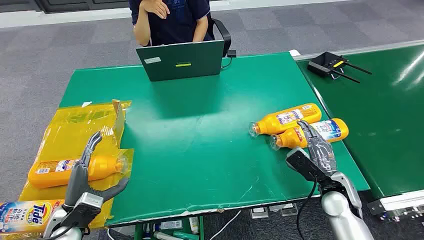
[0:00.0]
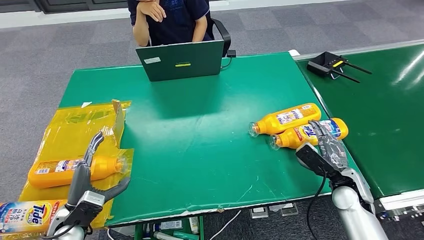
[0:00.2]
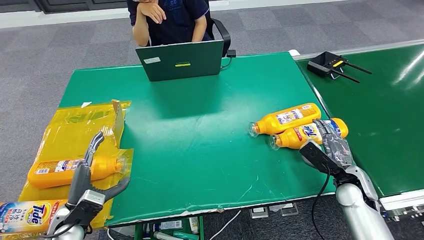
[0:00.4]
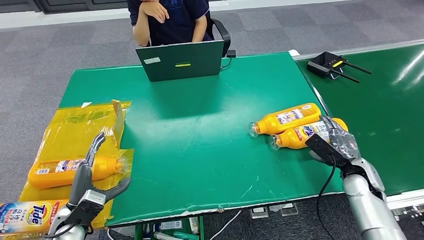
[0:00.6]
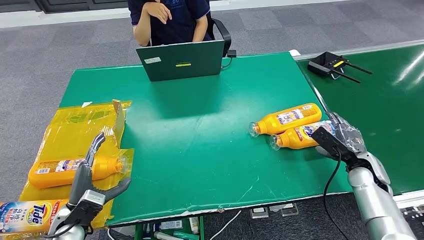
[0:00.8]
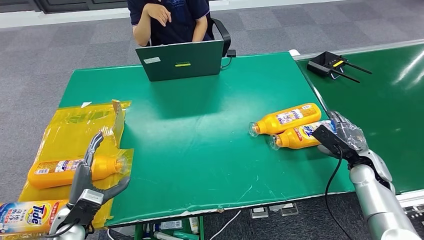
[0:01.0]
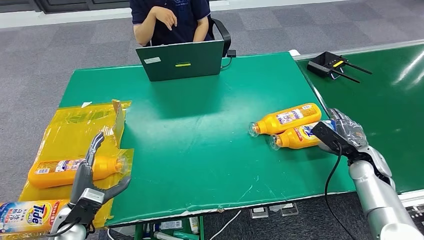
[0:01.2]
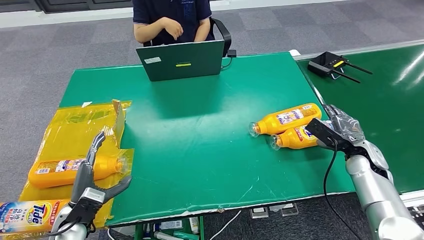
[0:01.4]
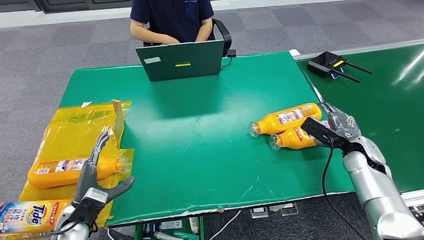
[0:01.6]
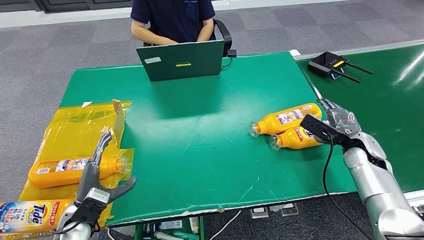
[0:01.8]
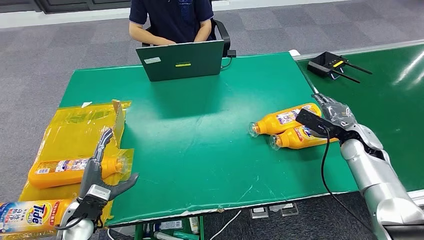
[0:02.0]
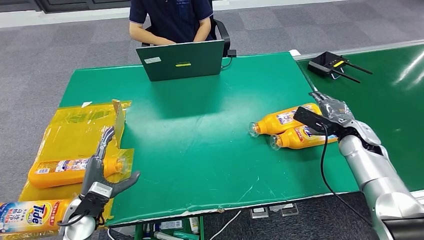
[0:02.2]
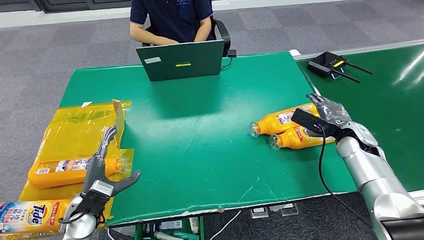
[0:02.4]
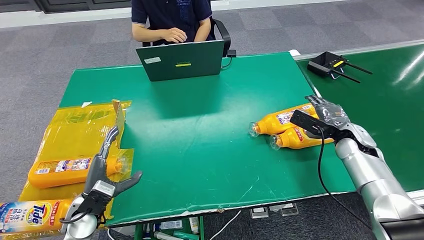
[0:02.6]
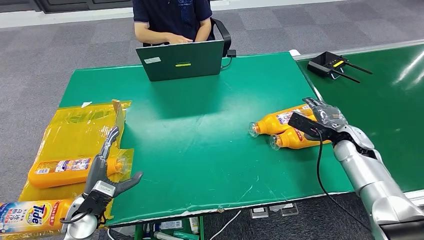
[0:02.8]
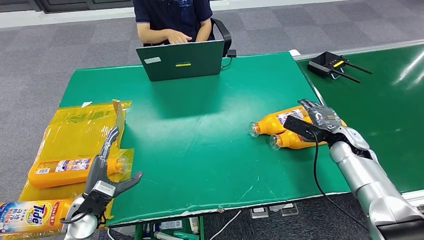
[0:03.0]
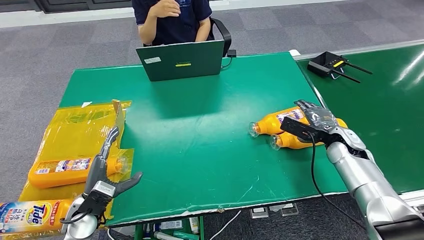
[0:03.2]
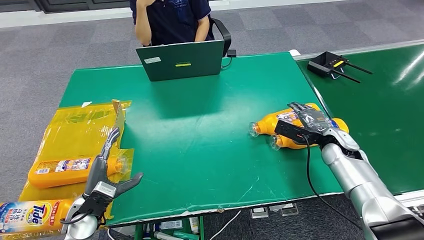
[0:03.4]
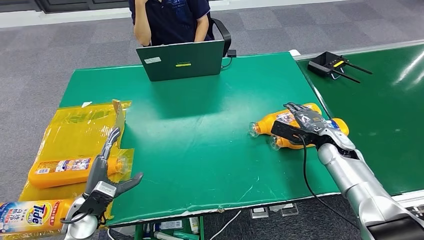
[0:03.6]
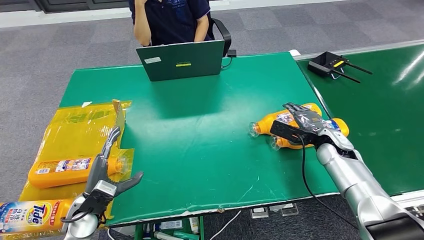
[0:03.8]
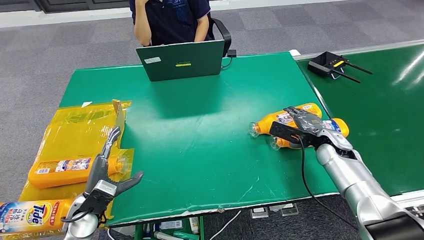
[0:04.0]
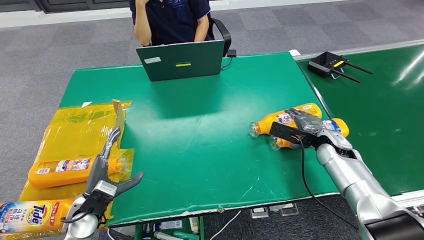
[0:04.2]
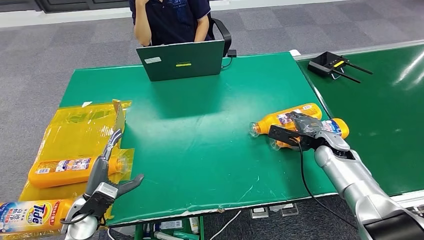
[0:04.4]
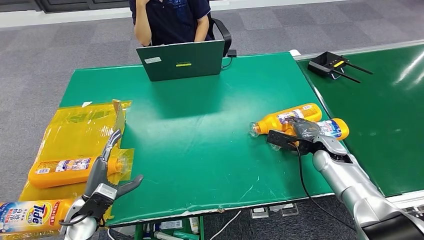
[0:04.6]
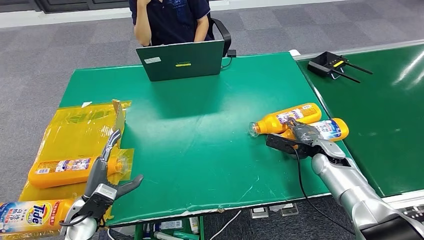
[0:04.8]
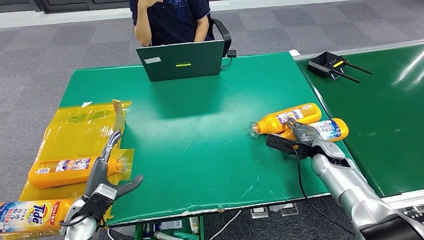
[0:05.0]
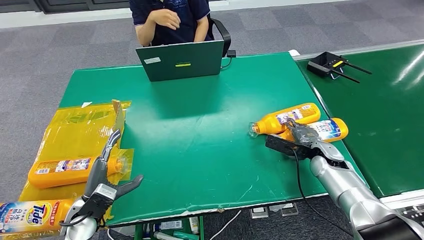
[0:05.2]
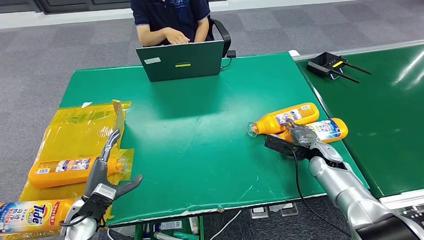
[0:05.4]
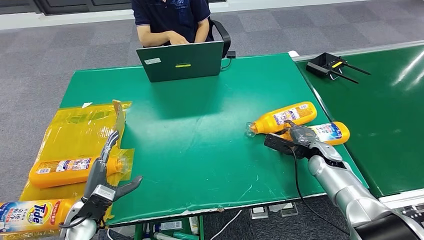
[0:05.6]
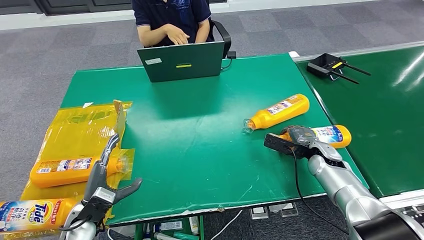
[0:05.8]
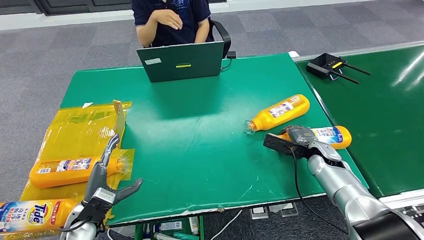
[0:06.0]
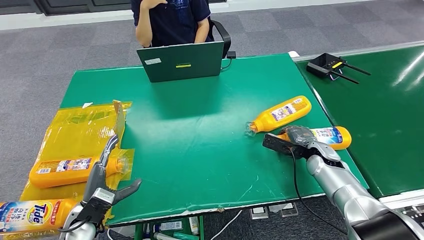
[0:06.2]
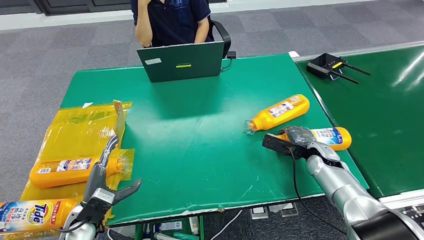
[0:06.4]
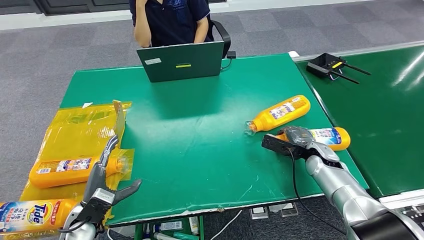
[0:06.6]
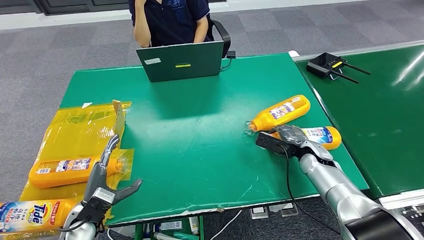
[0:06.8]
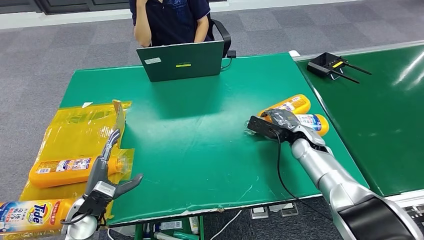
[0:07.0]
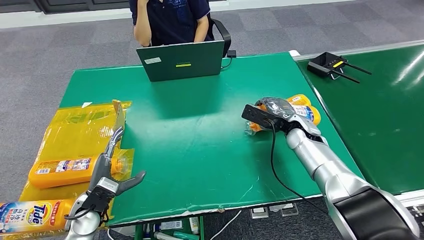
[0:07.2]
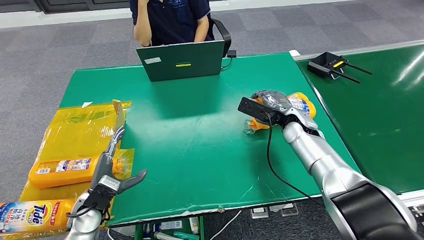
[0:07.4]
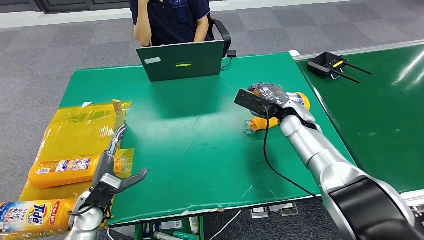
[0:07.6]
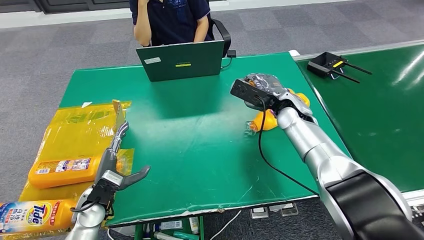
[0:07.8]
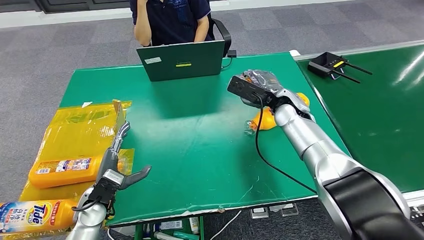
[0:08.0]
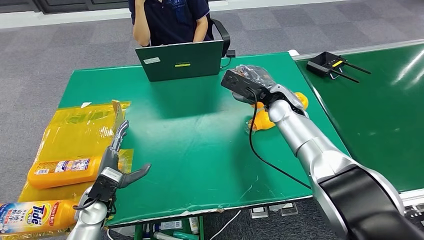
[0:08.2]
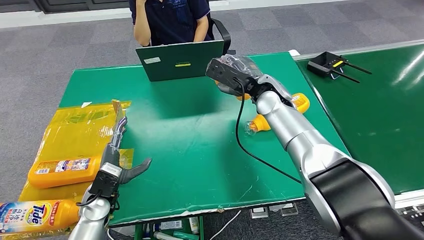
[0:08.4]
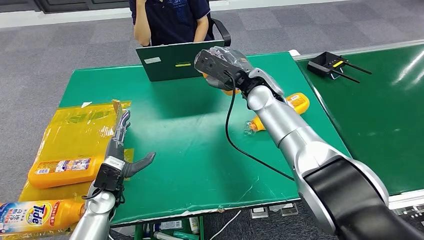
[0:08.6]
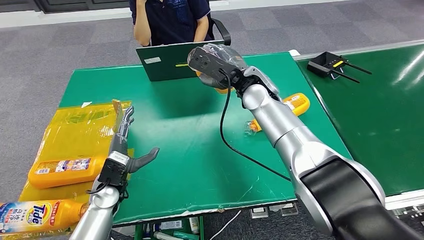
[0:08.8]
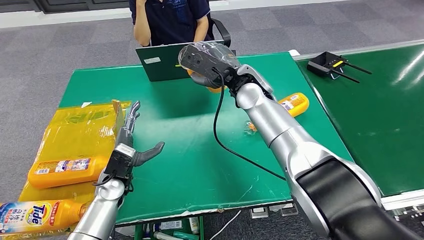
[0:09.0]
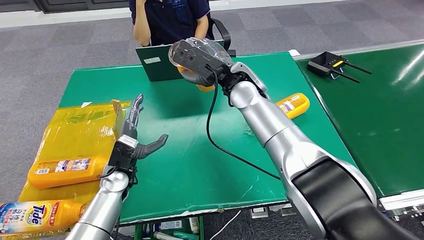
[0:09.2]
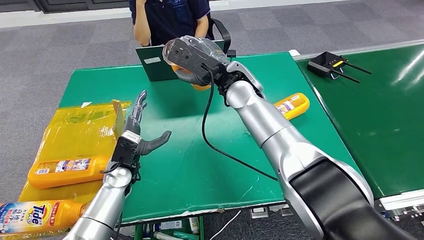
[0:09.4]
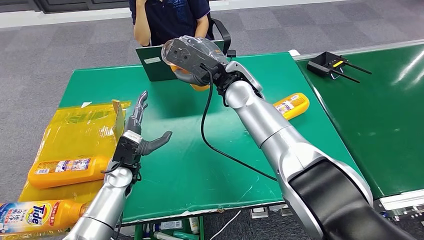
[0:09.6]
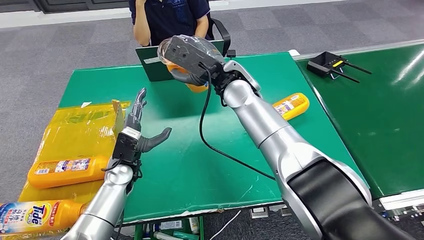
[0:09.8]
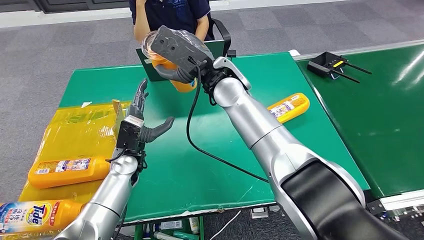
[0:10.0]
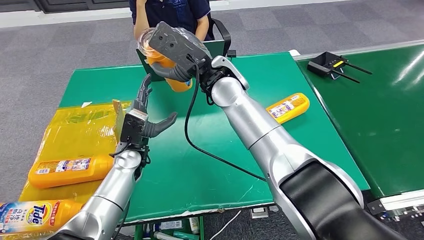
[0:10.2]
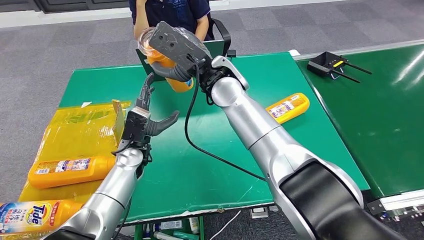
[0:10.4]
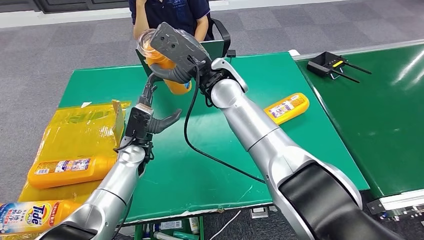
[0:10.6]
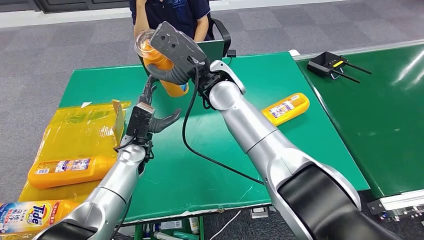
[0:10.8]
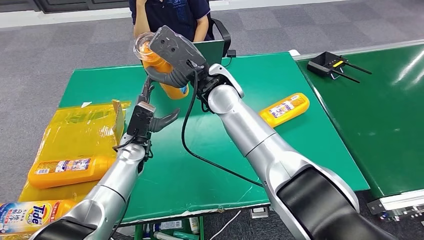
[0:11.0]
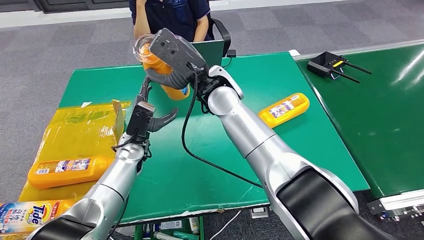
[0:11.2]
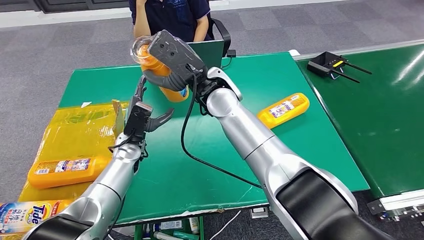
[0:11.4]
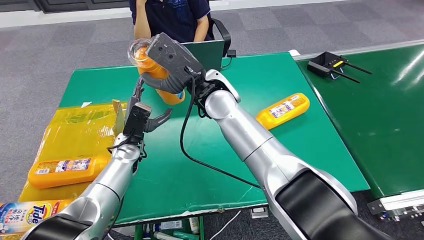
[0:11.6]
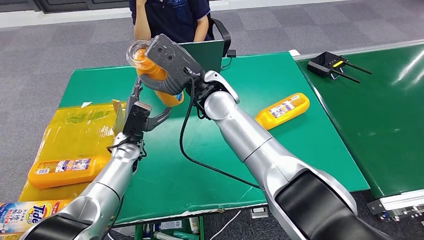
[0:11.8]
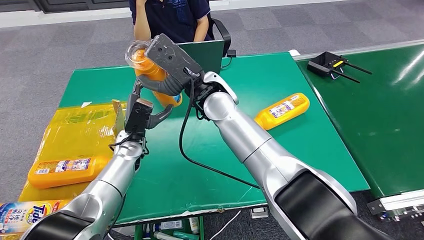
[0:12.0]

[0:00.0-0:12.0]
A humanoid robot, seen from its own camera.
Step, 0:00.0 to 0:07.0: Pick up the bottle from the table.
0:01.6 to 0:03.0: The right hand changes place by approximately 5 cm.
0:03.0 to 0:04.4: The hands stay close to where they were, moving slightly.
0:04.4 to 0:06.0: The hands make only small movements.
0:06.0 to 0:07.6: The right hand shifts some 15 cm upward, to the left and forward.

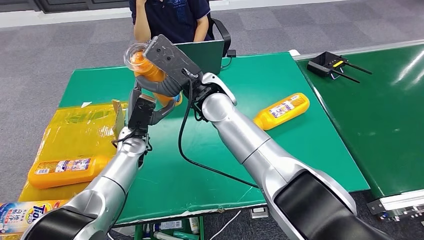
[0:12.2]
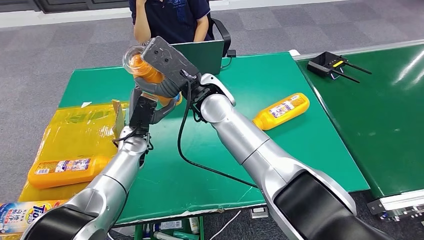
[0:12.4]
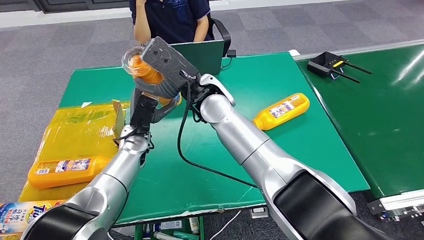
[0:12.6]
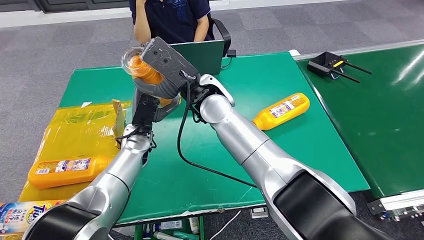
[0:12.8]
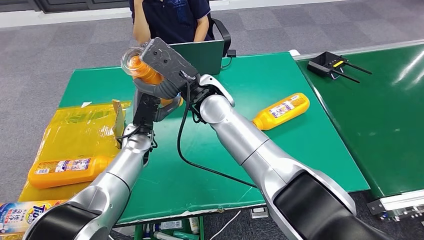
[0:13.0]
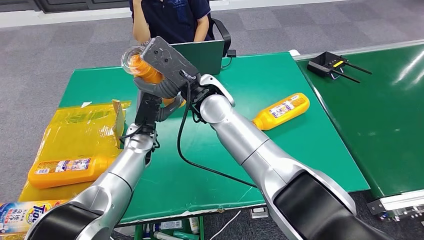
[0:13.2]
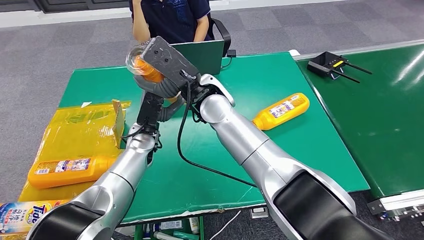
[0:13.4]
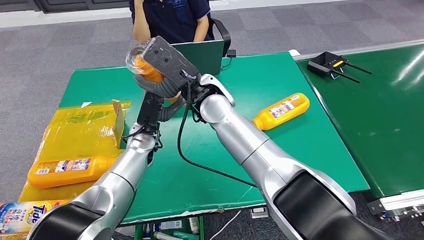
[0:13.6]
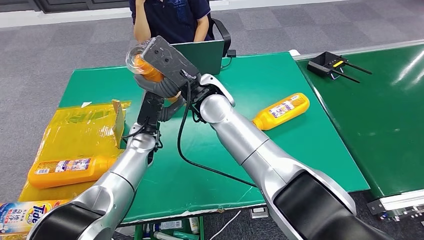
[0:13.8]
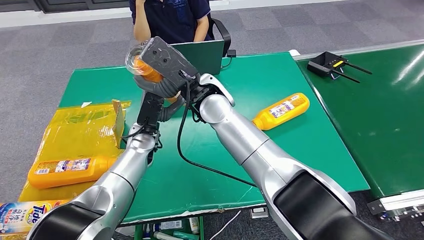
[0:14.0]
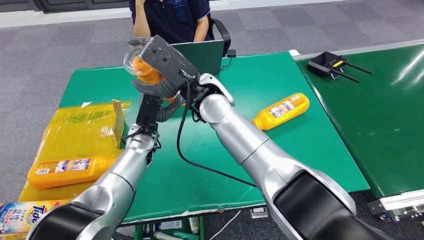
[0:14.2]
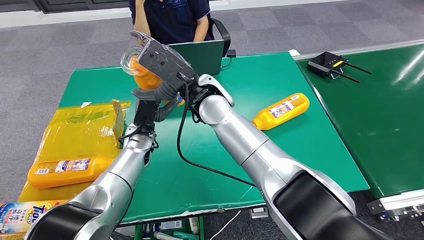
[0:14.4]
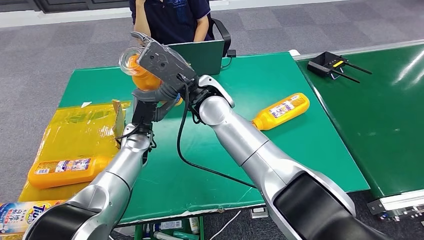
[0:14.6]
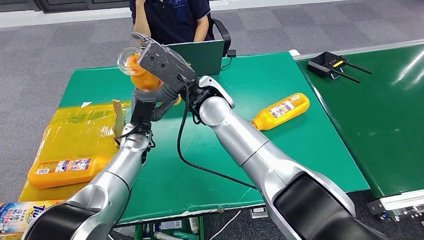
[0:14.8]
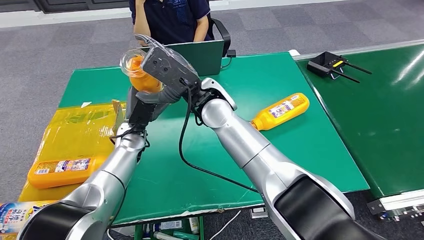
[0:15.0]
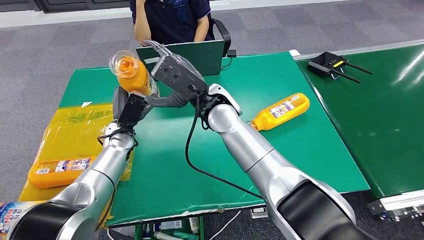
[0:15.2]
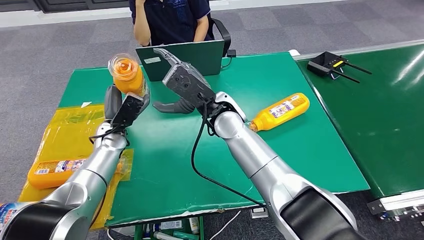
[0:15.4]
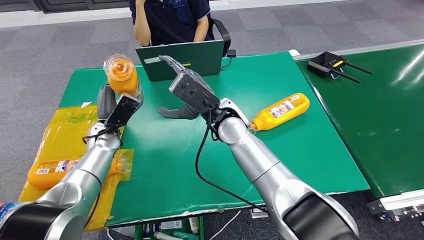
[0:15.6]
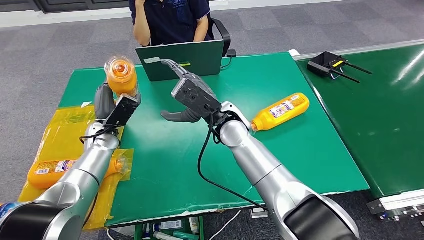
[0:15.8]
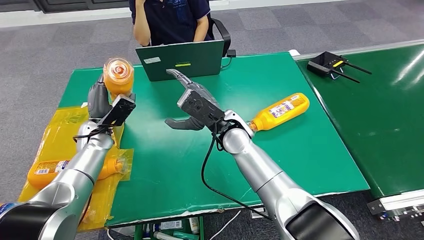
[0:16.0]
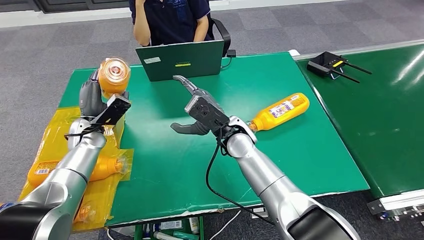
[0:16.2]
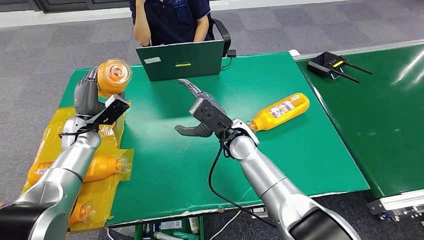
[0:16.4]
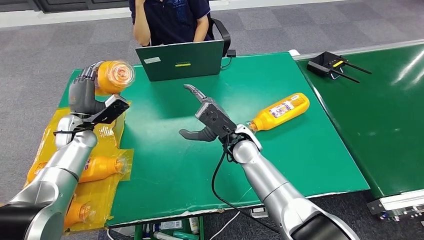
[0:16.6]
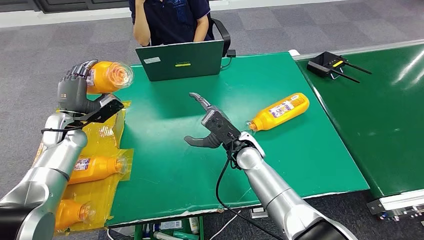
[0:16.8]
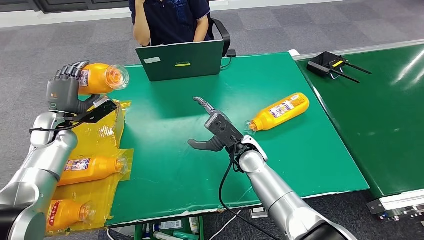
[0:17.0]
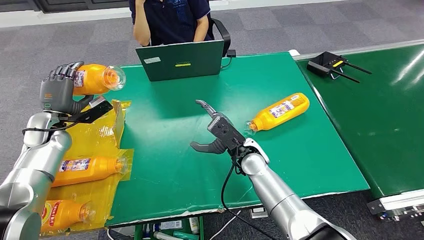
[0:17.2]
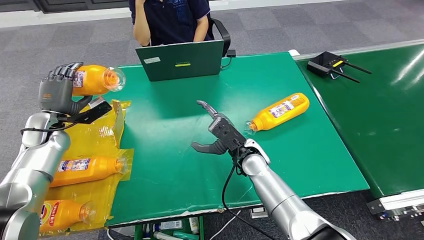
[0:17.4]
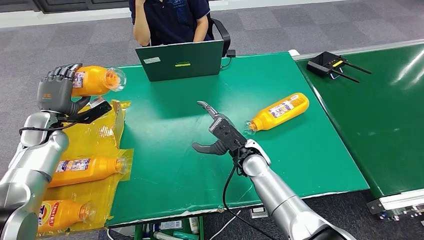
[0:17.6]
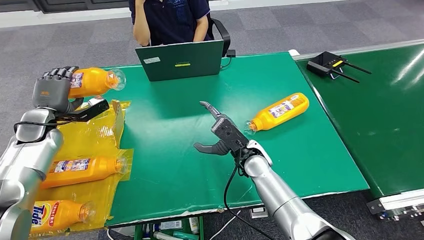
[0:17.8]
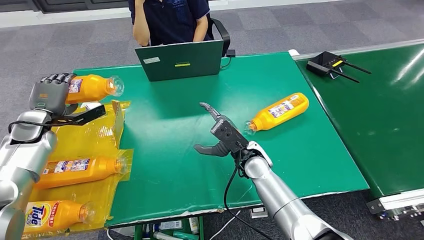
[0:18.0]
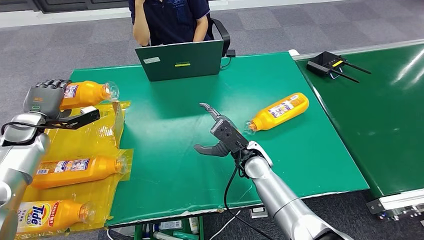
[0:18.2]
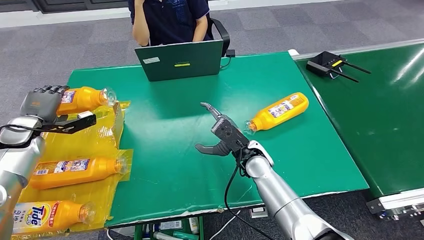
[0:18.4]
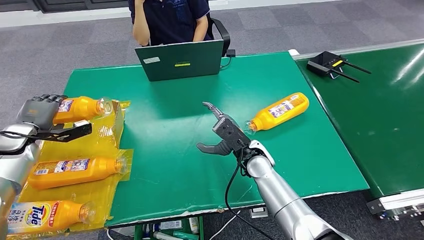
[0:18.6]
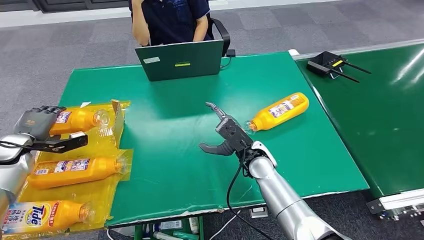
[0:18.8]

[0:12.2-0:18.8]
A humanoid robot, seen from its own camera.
Step, 0:12.2 to 0:18.6: Turn the bottle to the front side.
0:12.2 to 0:13.8: The hands make only small movements.
0:17.2 to 0:18.8: The left hand travels to the left by about 10 cm.
